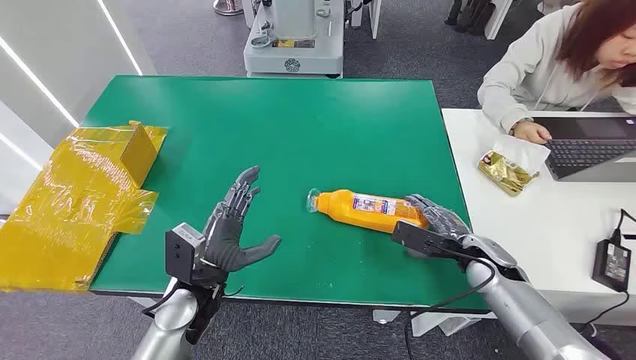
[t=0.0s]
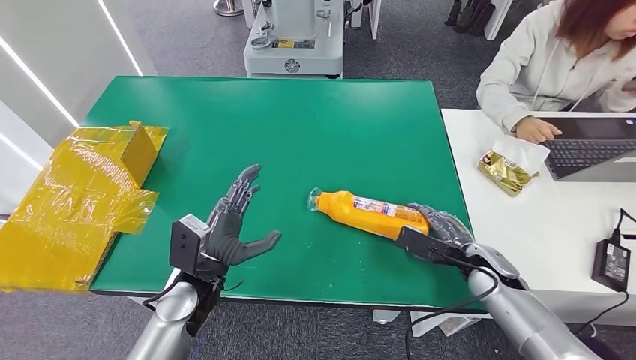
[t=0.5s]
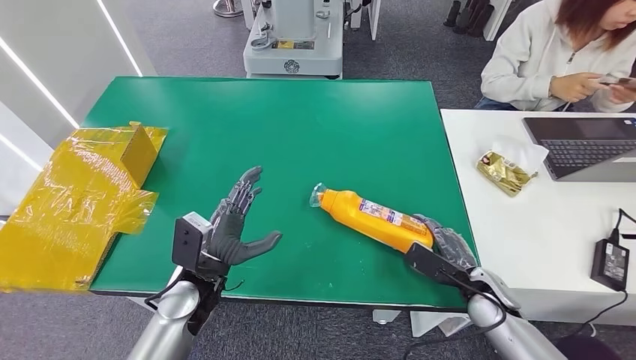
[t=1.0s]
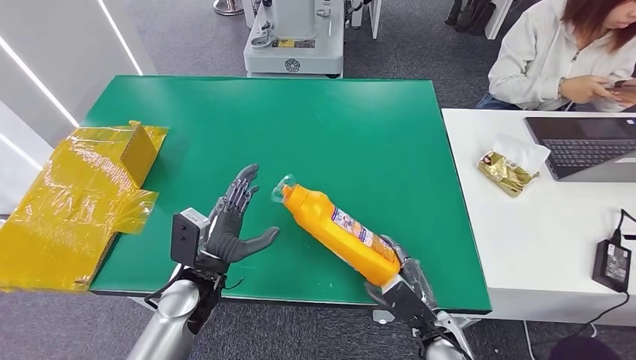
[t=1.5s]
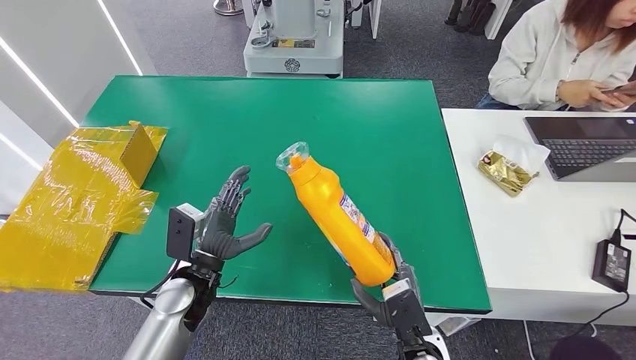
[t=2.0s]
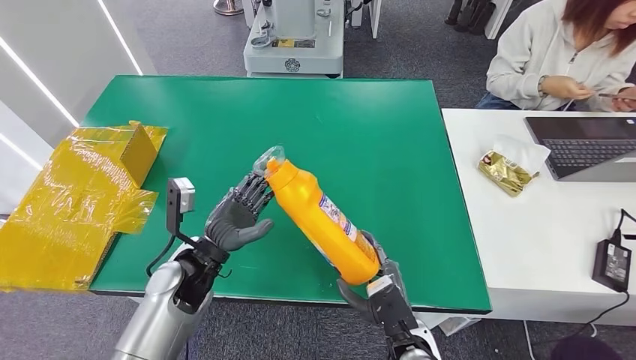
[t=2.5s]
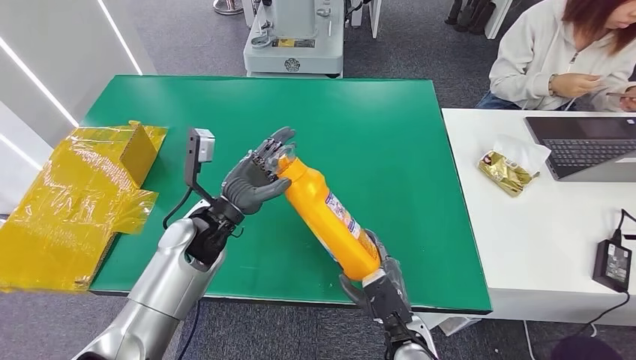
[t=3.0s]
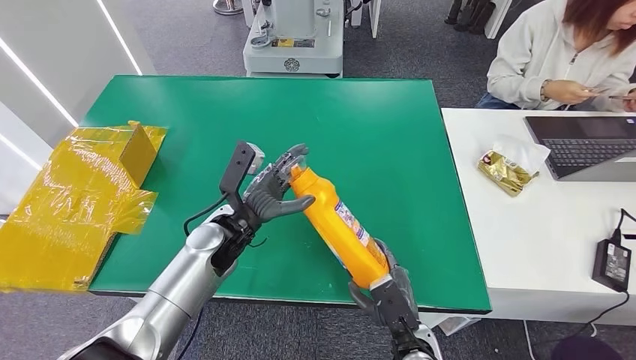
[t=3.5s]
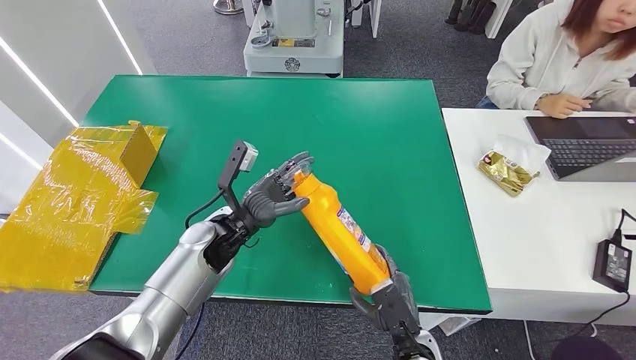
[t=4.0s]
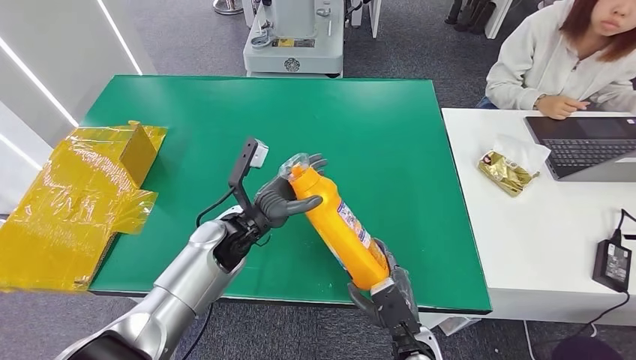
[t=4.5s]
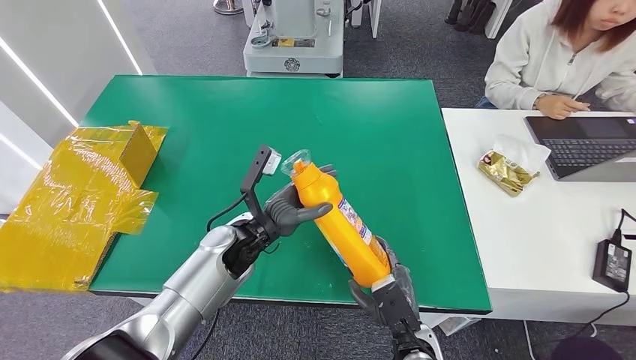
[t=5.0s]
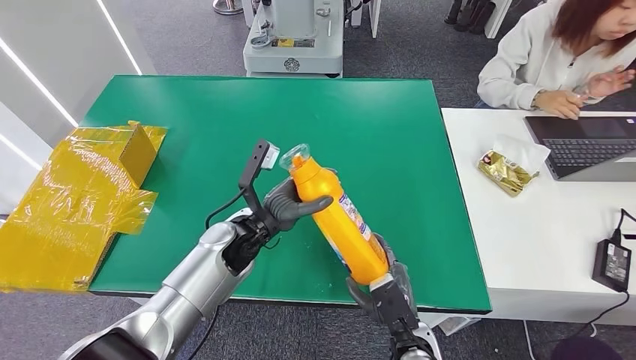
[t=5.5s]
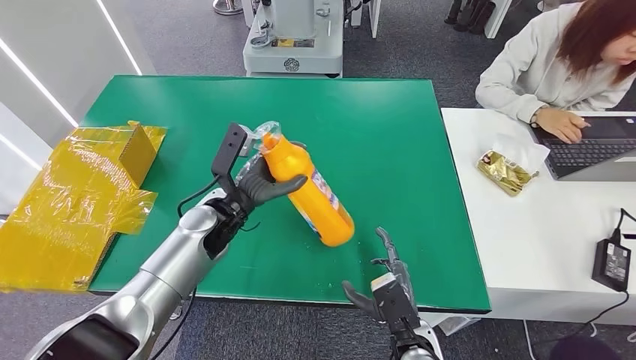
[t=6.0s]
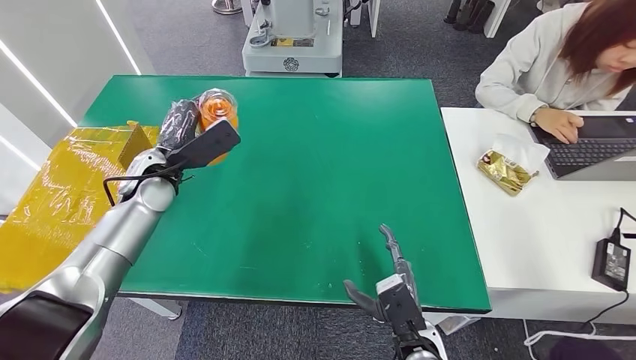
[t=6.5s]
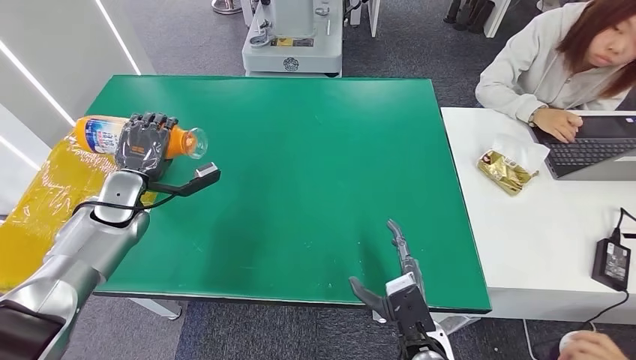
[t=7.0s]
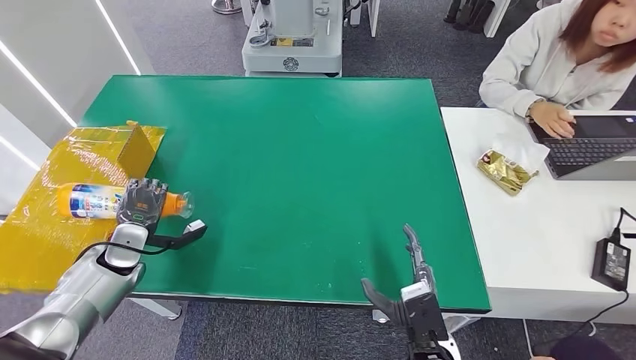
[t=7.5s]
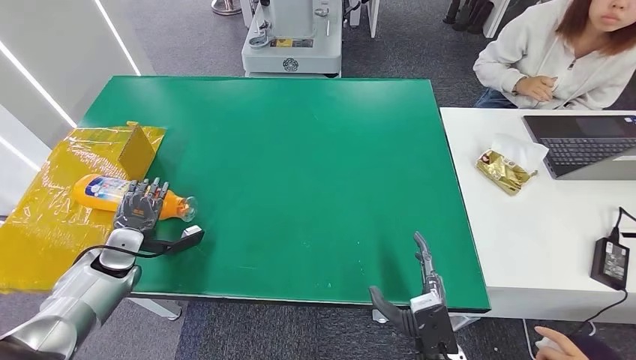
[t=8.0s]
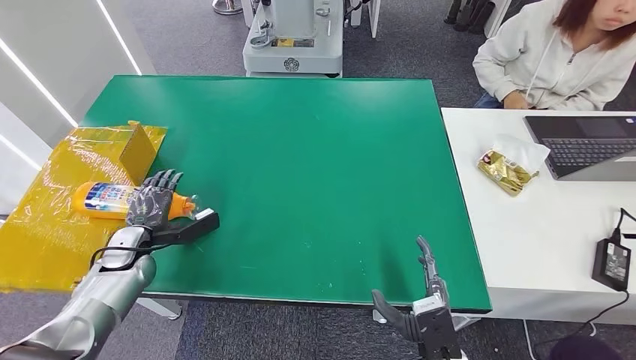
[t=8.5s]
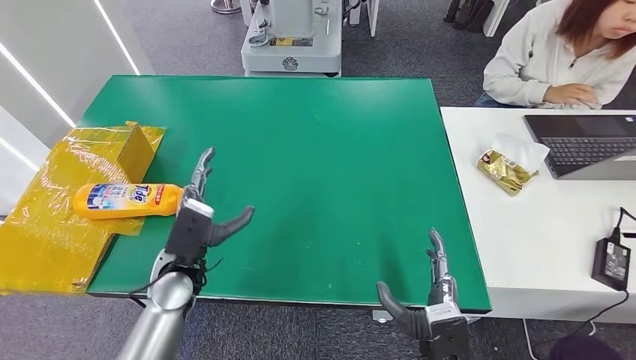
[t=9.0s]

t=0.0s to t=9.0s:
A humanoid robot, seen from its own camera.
Step, t=0.0s to t=3.0s: Pick up the bottle from the table.
Step, t=4.5s to t=9.0s: Turn the bottle to the front side.
t=2.0s to t=4.5s: The left hand moves forward, approximately 10 cm.

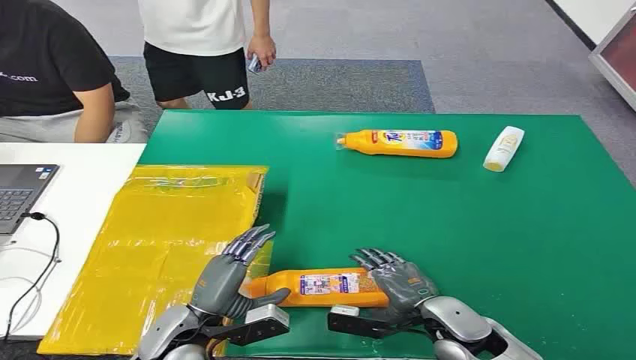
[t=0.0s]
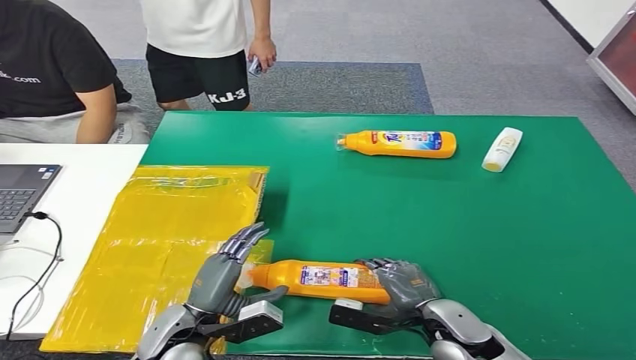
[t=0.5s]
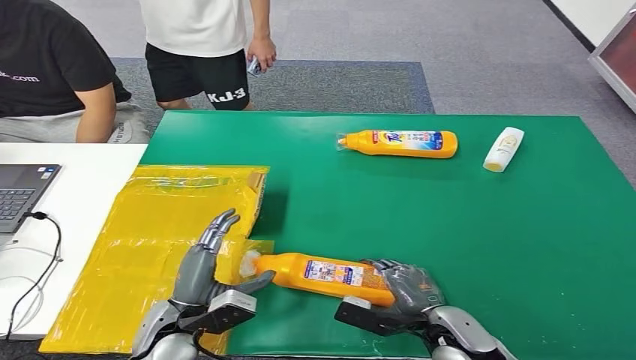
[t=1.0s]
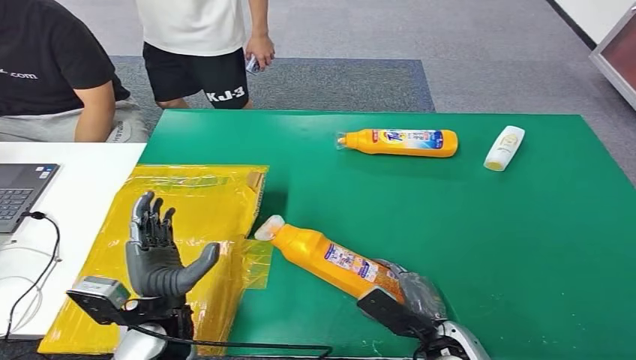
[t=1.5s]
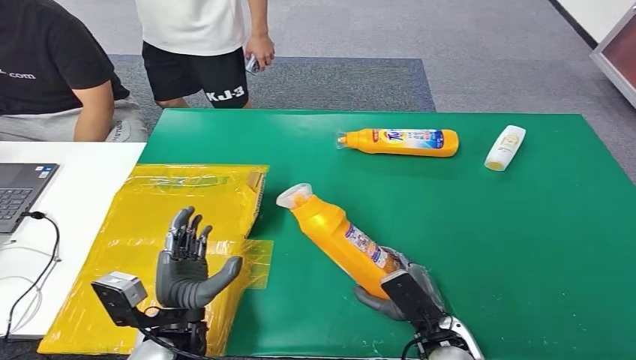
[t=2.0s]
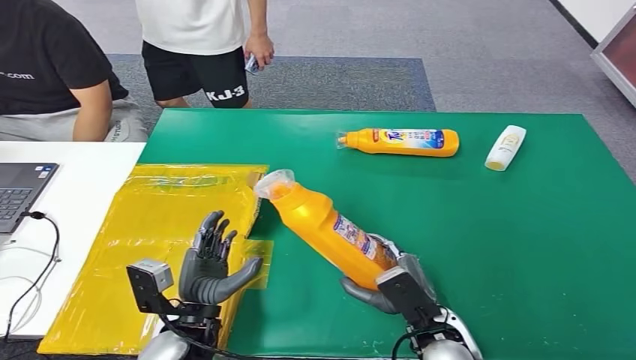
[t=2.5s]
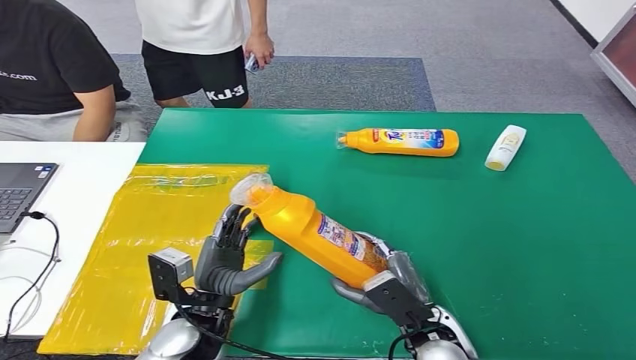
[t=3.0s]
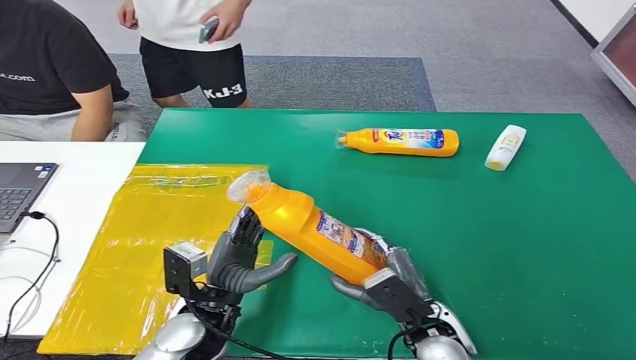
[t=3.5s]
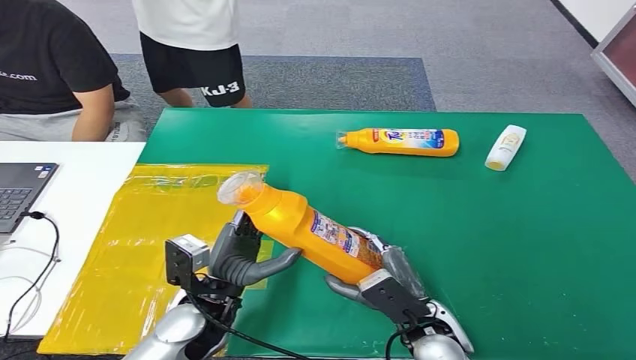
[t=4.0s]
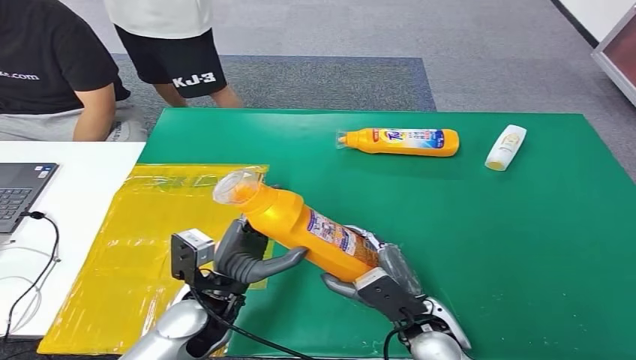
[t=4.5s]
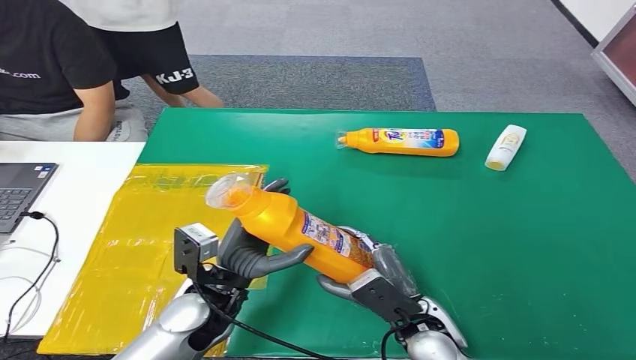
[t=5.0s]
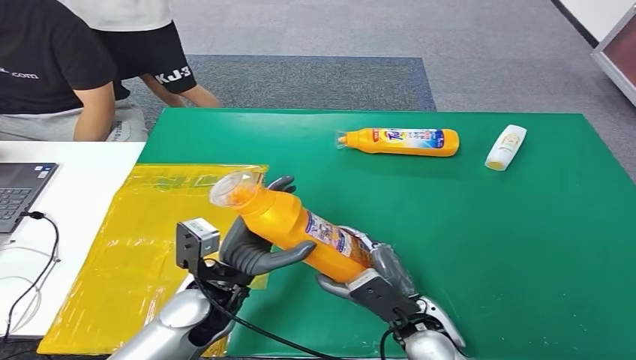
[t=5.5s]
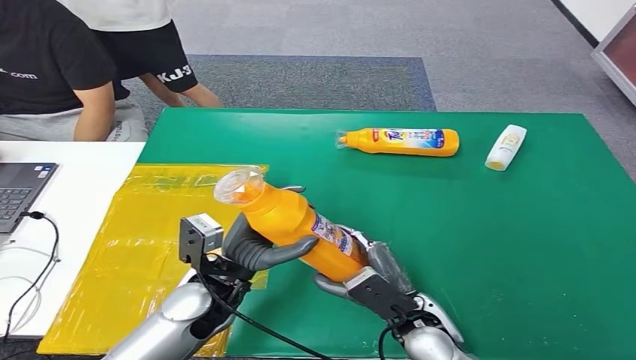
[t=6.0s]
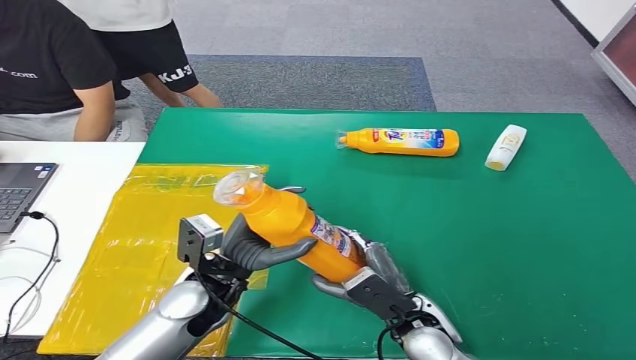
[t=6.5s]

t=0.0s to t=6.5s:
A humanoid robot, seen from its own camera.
Step, t=0.0s to t=2.0s: Pick up the bottle from the table.
Step, t=2.5s to t=6.5s: Turn the bottle to the front side.
t=2.0s to t=4.5s: The left hand shifts approximately 5 cm forward. Meanwhile the right hand changes place by about 5 cm.
t=4.5s to t=6.5s: The hands make only small movements.
